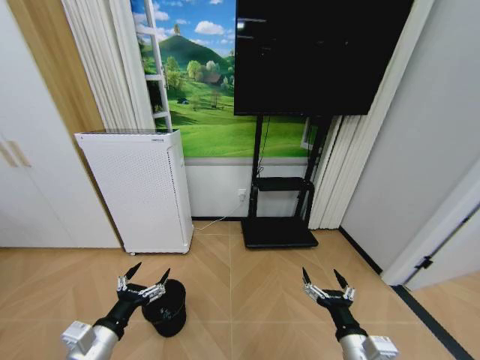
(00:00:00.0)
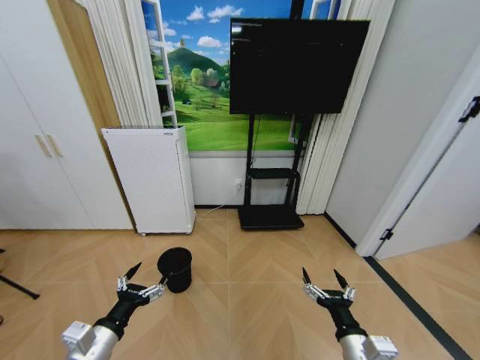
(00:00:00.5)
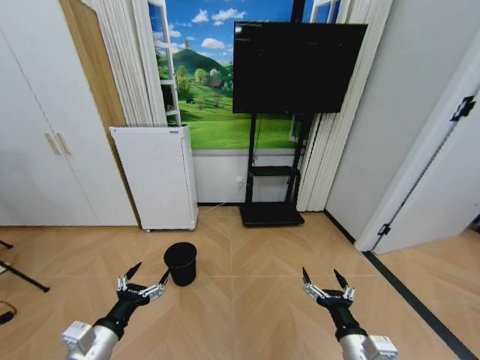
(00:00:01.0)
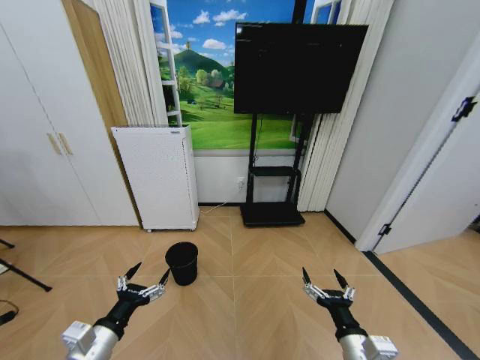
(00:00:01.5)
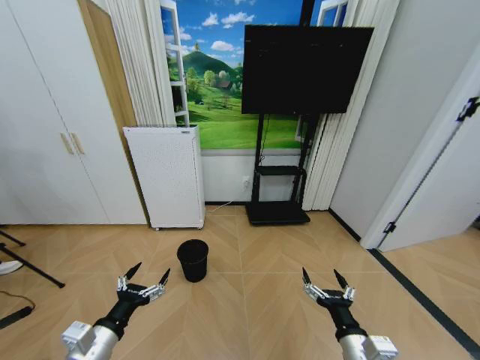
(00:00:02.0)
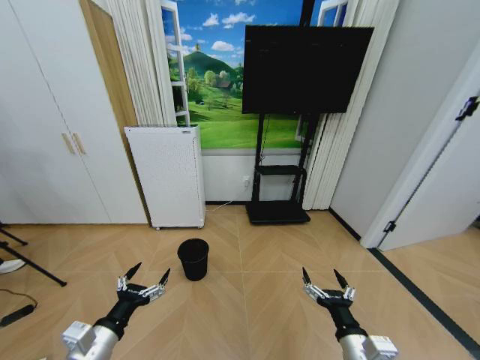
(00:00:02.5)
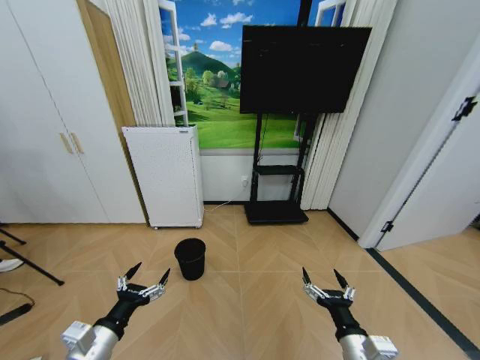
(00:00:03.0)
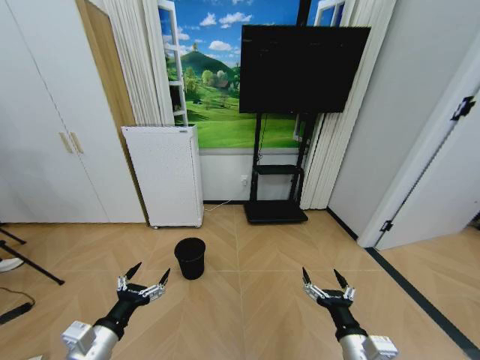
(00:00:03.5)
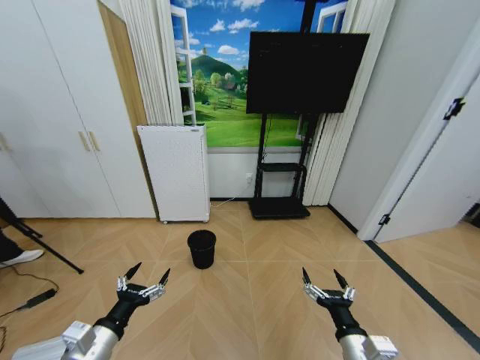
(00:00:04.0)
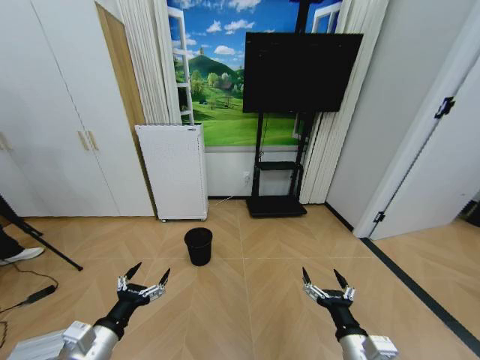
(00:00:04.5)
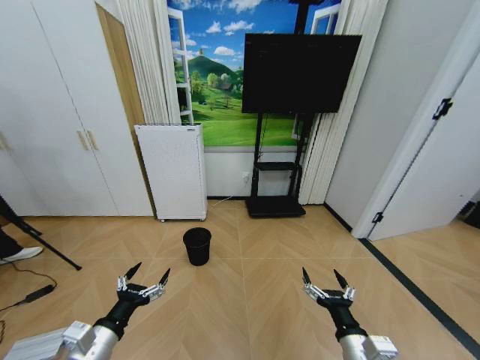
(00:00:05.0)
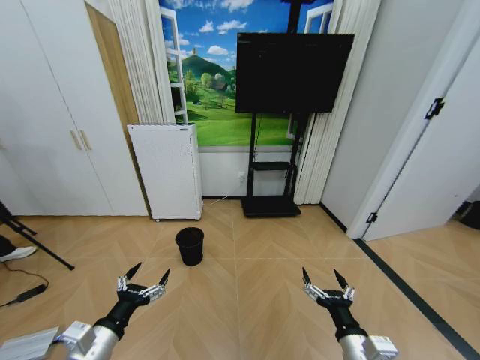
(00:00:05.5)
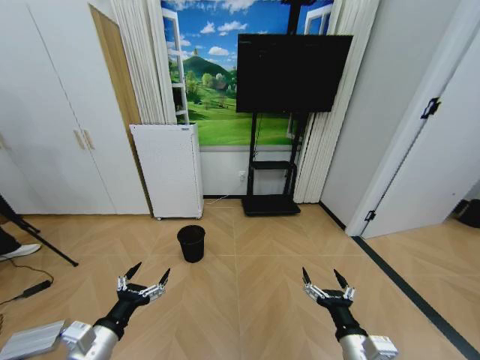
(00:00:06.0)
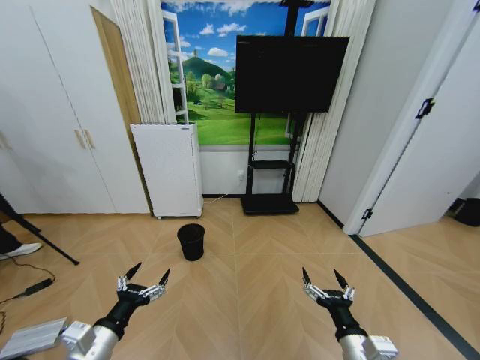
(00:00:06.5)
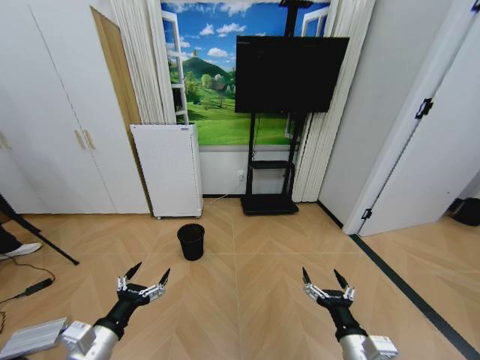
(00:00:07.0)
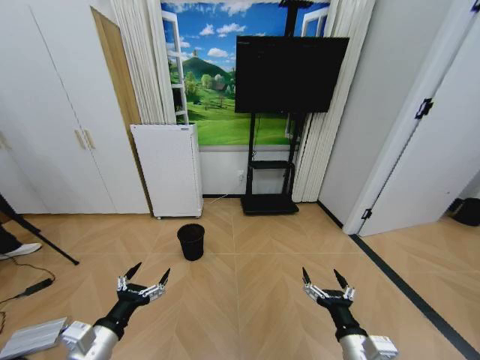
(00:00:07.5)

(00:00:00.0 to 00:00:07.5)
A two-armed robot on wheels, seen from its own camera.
Task of the whole recording: Pick up the trash bin and place the garbage on the floor into it.
00:00:02.0 - 00:00:04.0: Neither gripper changes place.
00:00:05.5 - 00:00:07.5: Both grippers stay about where they are.
